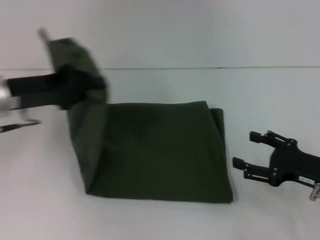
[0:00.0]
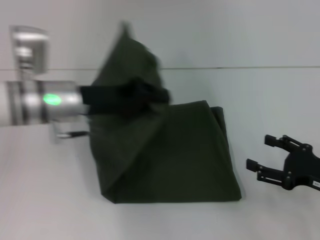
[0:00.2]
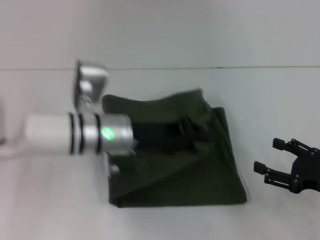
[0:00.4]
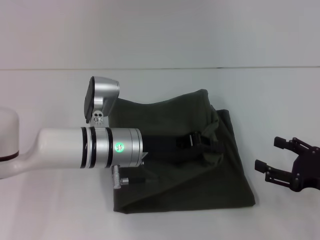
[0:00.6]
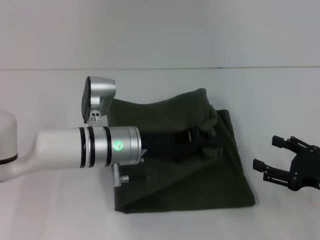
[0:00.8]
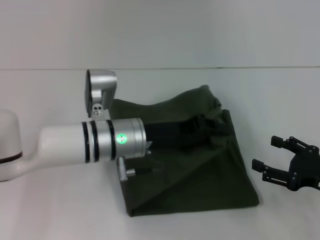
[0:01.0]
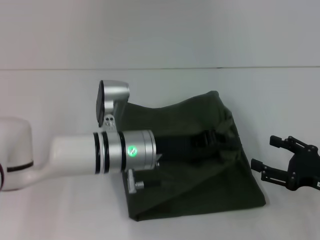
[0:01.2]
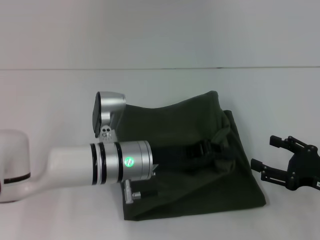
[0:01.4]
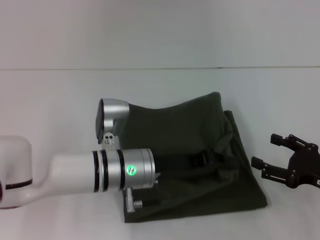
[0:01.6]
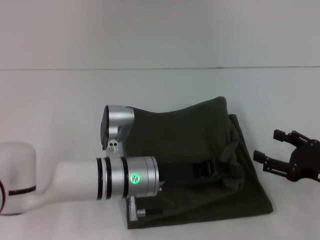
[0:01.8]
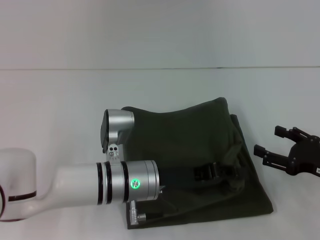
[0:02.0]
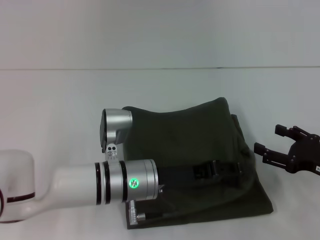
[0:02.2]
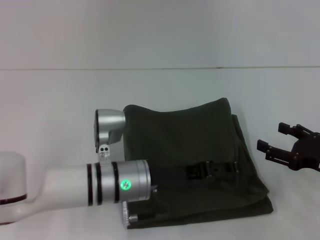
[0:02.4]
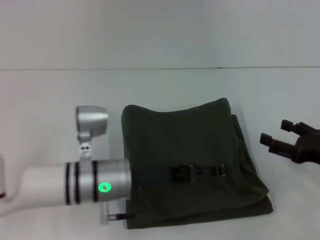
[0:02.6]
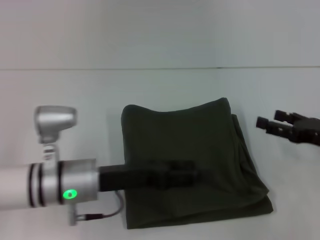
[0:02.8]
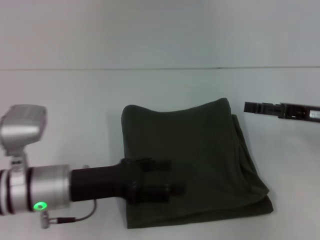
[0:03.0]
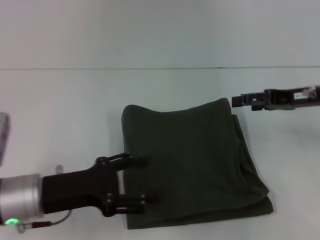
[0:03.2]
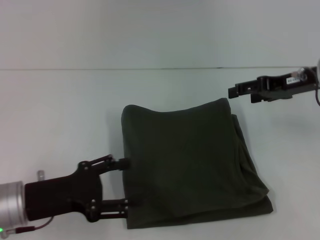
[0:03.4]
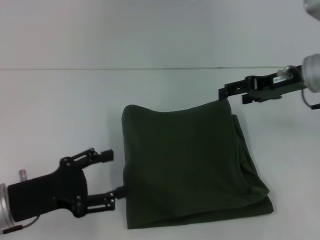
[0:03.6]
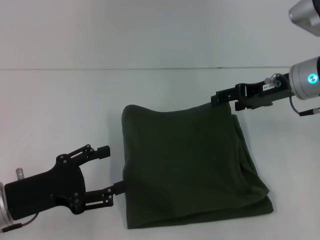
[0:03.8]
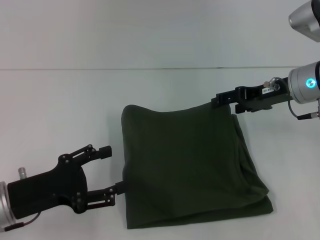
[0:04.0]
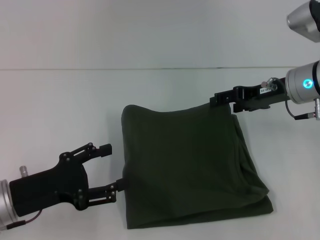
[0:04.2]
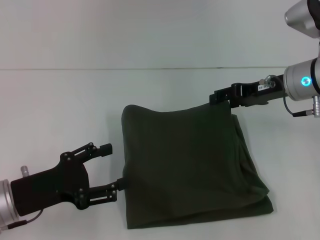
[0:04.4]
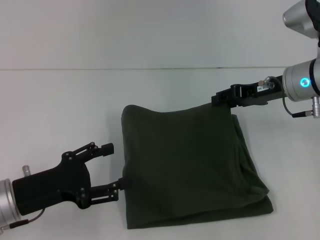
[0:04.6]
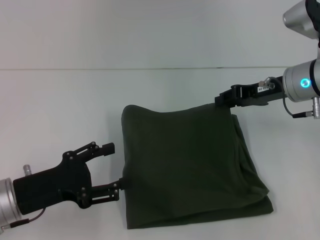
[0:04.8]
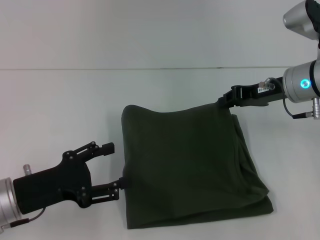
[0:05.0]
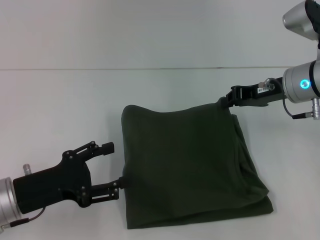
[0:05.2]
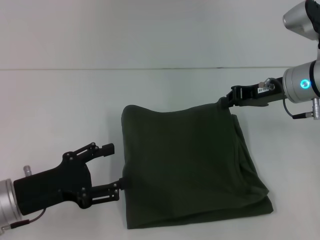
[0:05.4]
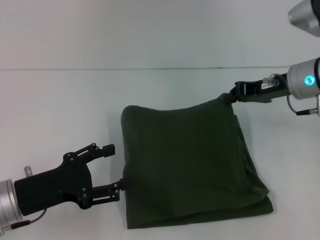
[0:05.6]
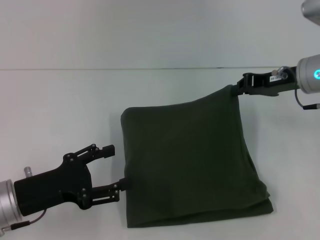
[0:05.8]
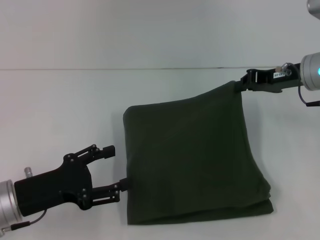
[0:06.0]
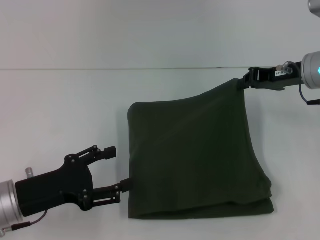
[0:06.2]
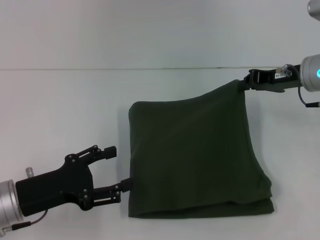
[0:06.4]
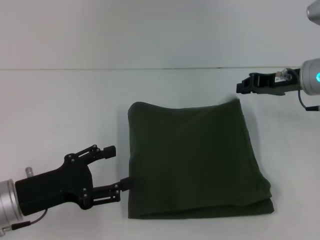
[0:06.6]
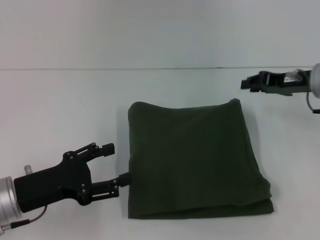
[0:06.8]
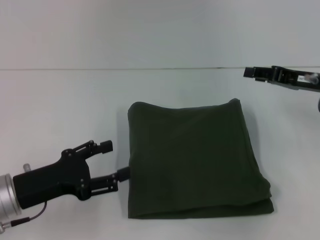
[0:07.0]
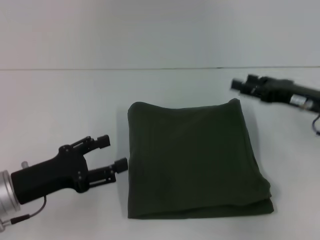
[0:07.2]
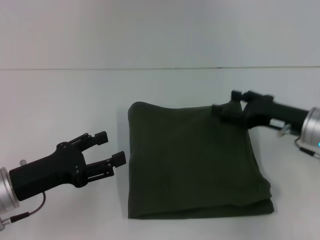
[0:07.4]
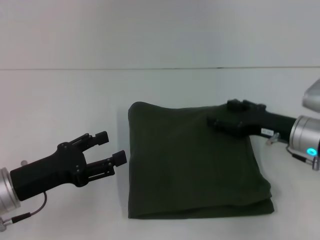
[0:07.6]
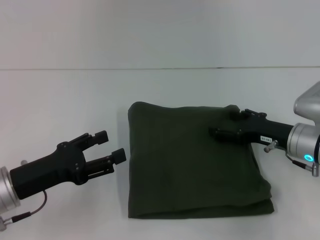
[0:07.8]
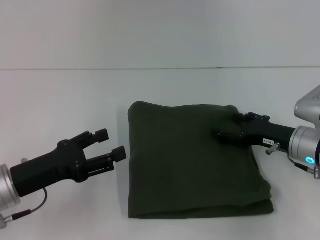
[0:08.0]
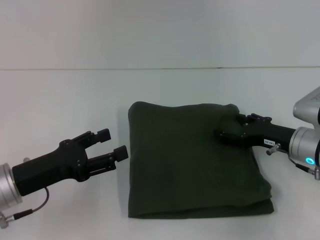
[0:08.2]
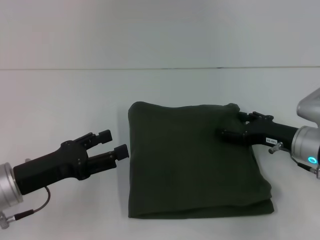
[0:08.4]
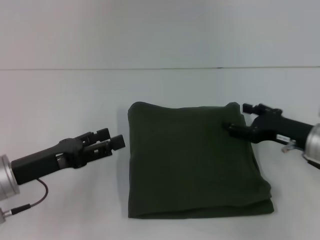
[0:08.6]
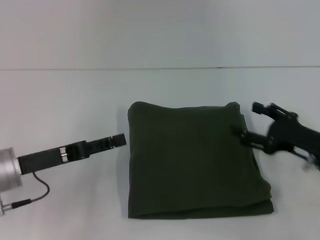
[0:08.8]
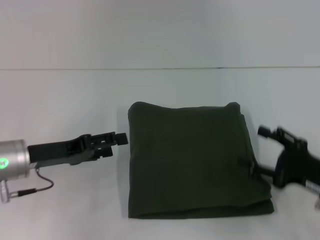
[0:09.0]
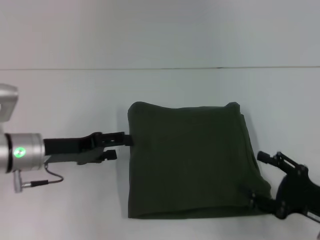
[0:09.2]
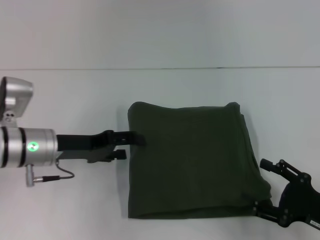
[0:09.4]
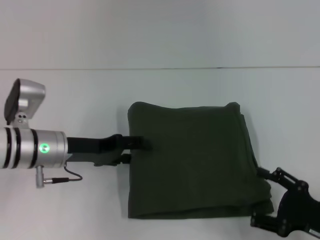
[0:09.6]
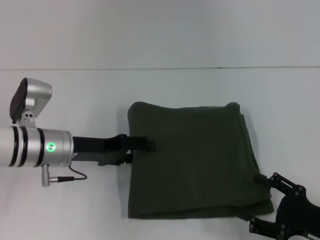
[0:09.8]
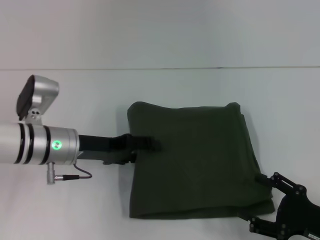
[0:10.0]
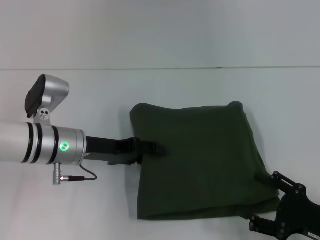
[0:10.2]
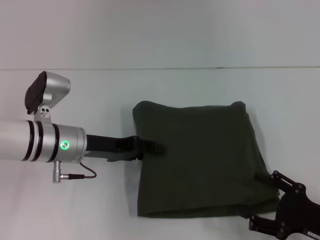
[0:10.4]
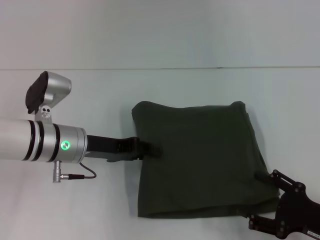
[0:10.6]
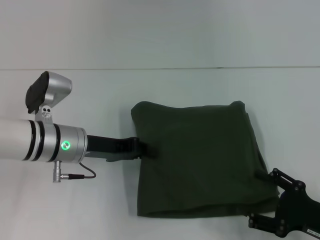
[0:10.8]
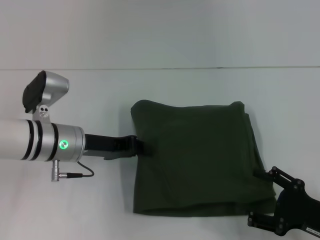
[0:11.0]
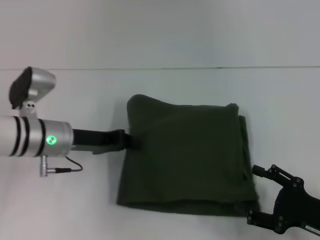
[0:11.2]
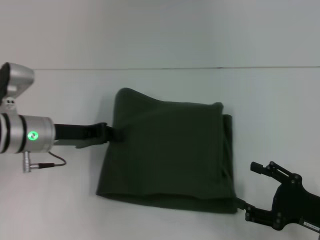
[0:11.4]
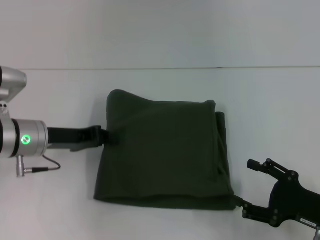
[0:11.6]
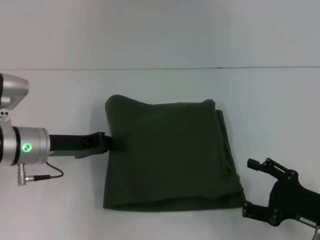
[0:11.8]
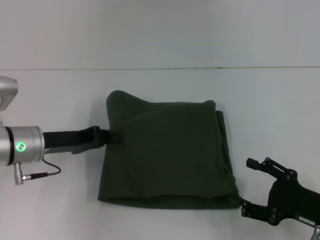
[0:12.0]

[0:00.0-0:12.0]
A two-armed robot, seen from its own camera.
Step, 0:00.0 to 0:02.4: Fold the clothes with your left hand.
0:00.0 to 0:01.6: The left gripper moves to the right and downward, roughly 20 cm.
0:01.6 to 0:03.0: The right gripper travels forward and upward by about 10 cm, while the left gripper travels to the left by roughly 10 cm, and opens up.
0:03.0 to 0:04.4: The right gripper is displaced to the left and forward by some 10 cm, while the left gripper is displaced to the left by roughly 5 cm.
0:04.4 to 0:06.0: The right gripper closes up.
0:06.0 to 0:07.6: The right gripper goes about 10 cm downward and backward, and opens.
0:07.6 to 0:09.0: The right gripper heads backward, covering some 10 cm, while the left gripper goes approximately 5 cm forward.
0:09.0 to 0:10.4: The right gripper travels backward by about 5 cm, while the left gripper shifts approximately 5 cm to the right.
0:10.4 to 0:12.0: The left gripper moves to the left, some 5 cm, and closes its fingers.

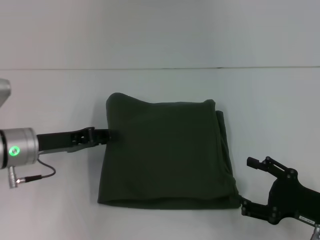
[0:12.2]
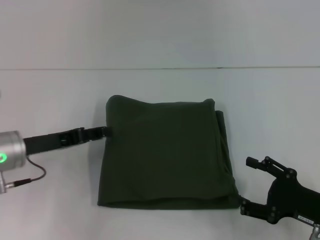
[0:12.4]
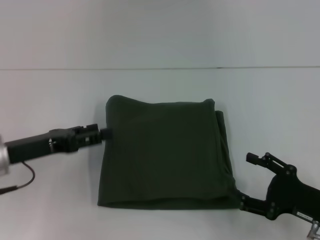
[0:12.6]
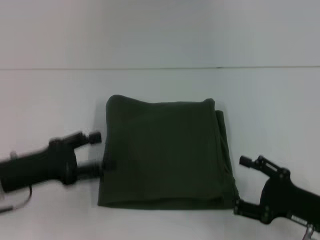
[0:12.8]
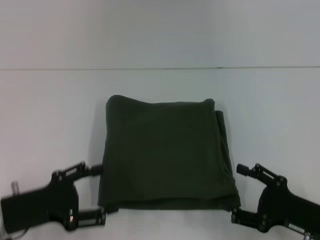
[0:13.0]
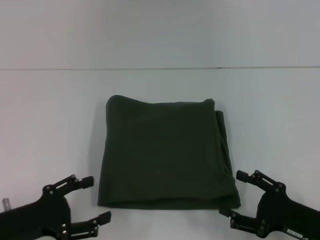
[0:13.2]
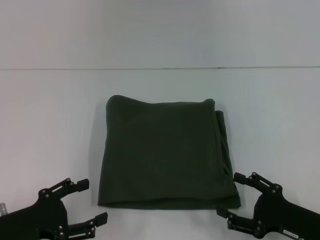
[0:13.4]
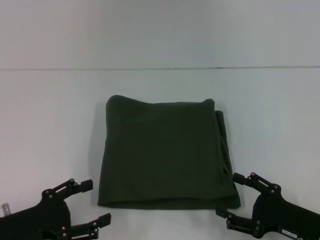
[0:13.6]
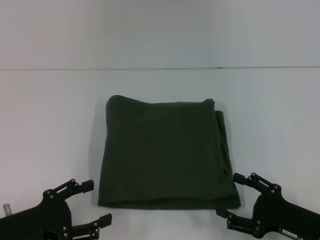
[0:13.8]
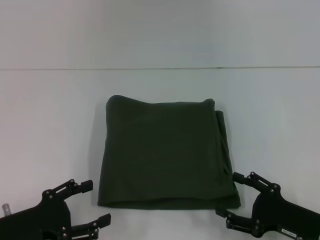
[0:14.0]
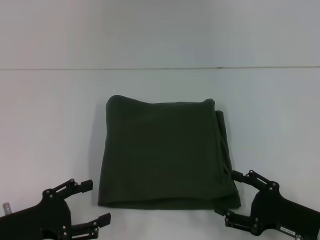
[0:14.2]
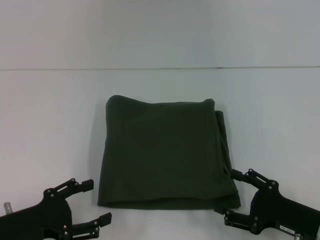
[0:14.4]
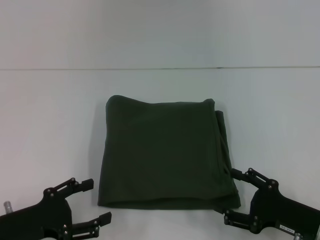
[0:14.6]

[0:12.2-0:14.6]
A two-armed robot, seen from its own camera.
0:12.2 to 0:13.4: The left gripper travels backward by about 15 cm, and opens up.
0:13.4 to 0:14.6: Both grippers stay about where they are.

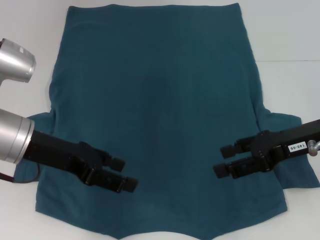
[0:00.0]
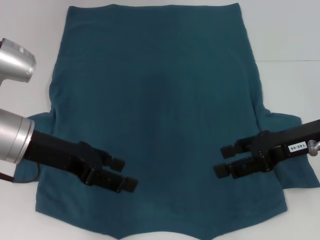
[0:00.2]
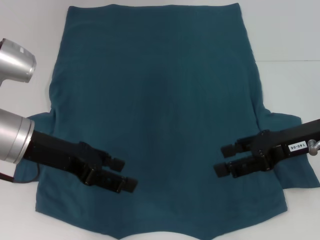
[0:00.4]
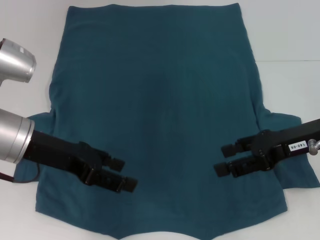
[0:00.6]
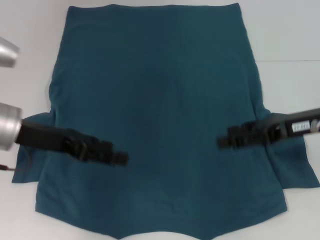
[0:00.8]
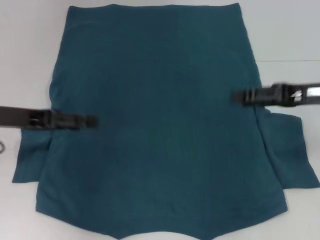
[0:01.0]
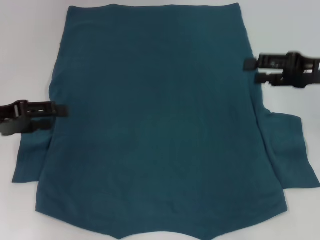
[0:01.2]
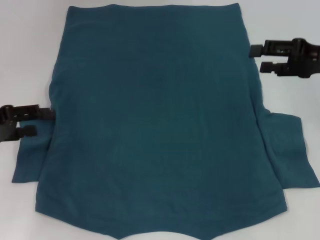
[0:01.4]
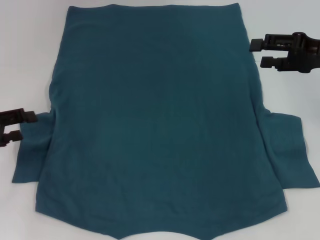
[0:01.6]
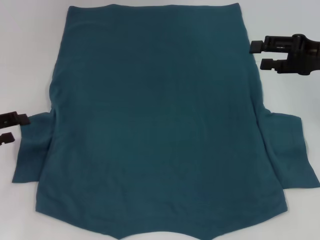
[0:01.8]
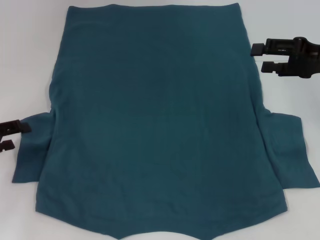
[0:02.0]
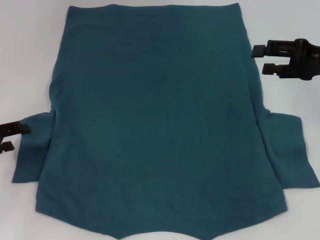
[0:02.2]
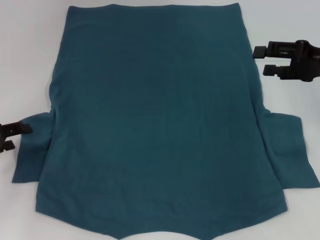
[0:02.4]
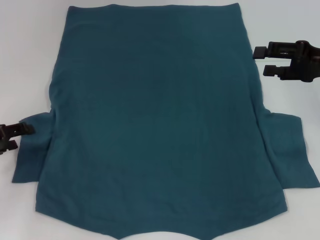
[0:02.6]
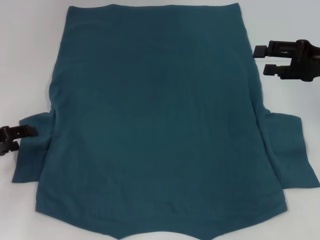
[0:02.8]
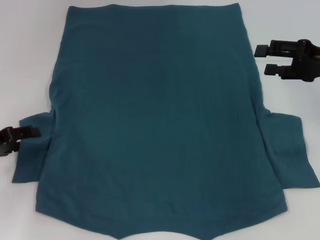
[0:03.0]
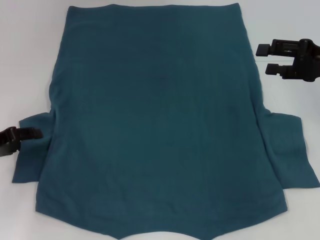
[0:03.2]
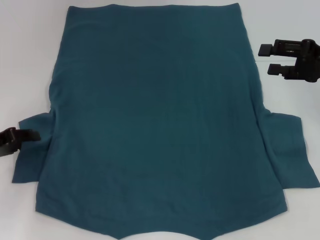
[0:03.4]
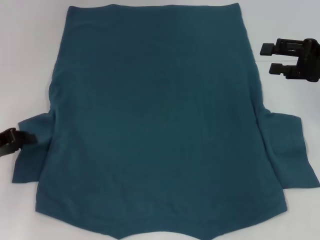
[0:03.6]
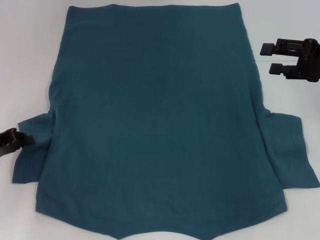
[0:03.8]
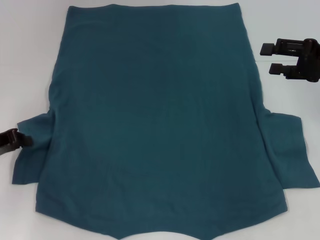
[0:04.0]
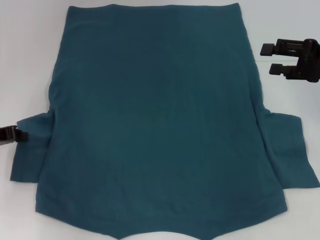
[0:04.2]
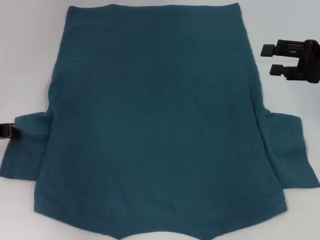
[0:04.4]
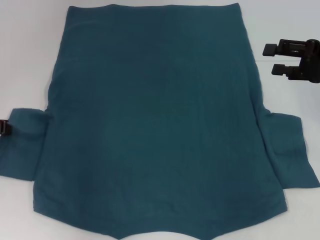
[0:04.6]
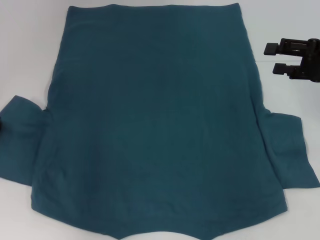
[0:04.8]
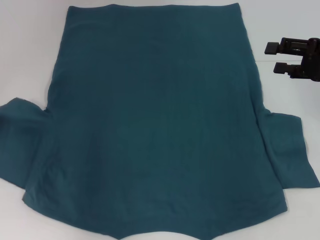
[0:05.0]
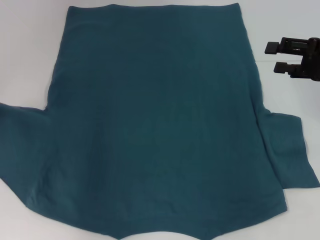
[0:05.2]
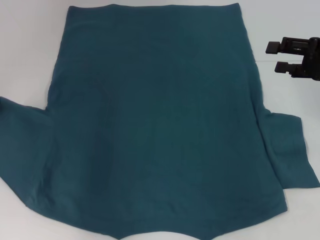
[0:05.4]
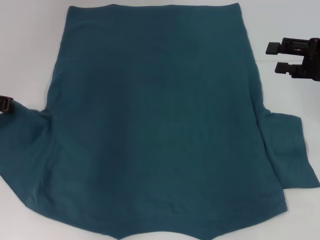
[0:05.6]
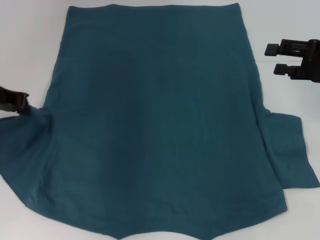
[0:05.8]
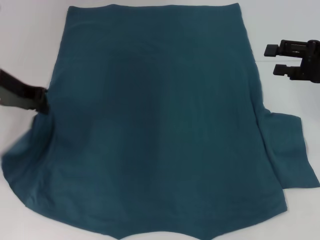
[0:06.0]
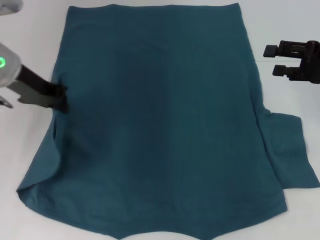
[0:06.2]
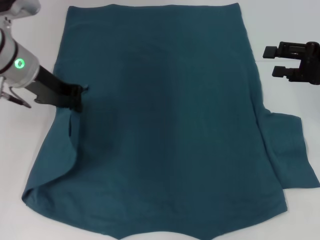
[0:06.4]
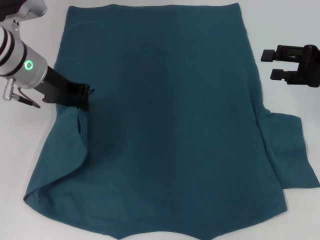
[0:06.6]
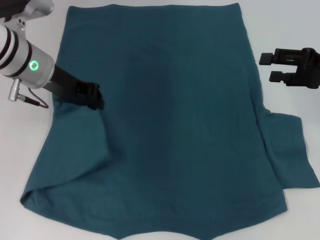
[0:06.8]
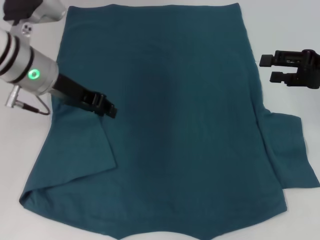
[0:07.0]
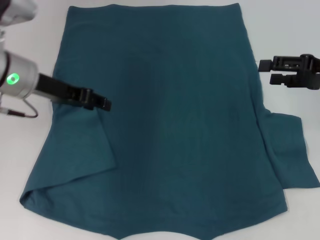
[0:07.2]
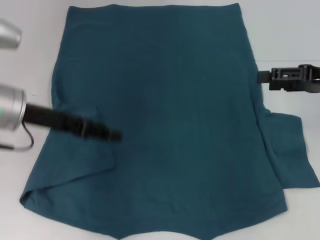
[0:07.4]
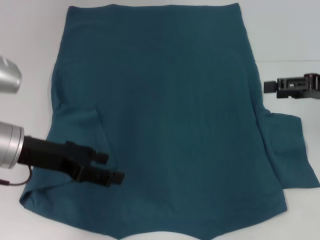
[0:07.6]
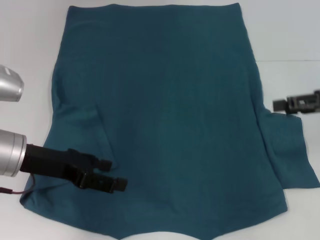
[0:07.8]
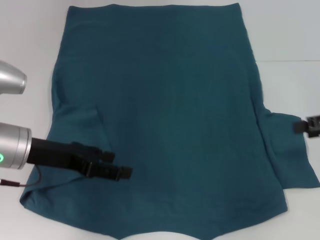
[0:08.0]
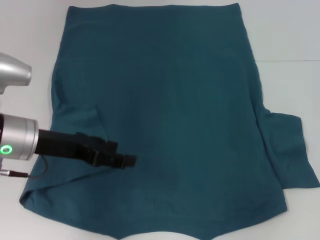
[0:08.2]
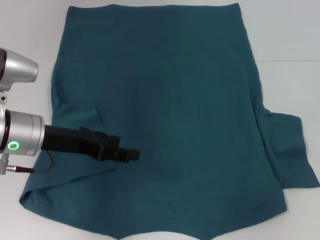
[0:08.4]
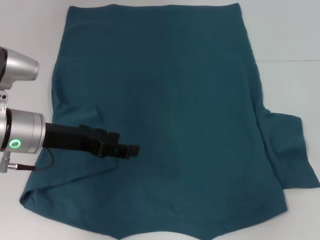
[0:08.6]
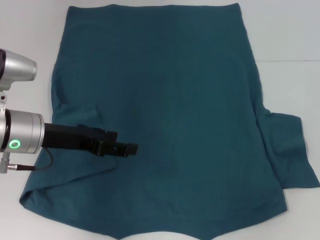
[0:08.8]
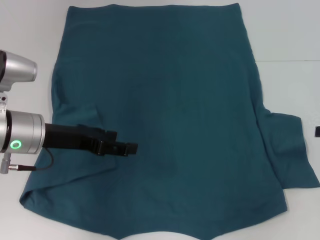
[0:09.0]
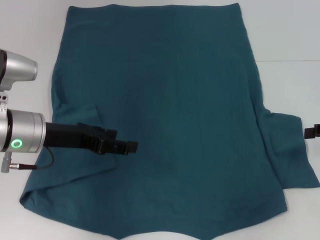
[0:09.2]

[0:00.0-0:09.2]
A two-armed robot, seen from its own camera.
Step, 0:00.0 to 0:07.8: Fold the bottom left sleeve with your left hand.
0:00.0 to 0:01.6: The right gripper moves forward and to the right, some 10 cm; the left gripper goes approximately 15 cm to the left.
0:01.6 to 0:03.0: The grippers move only a little.
0:03.0 to 0:04.6: The left gripper moves some 5 cm, and closes its fingers.
0:04.6 to 0:06.2: The left gripper shifts roughly 15 cm to the right, upward and forward.
0:06.2 to 0:07.6: The left gripper is displaced backward and downward by approximately 10 cm, and opens its fingers.
0:07.6 to 0:09.2: The right gripper heads to the right, covering roughly 5 cm.
